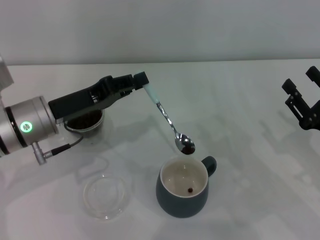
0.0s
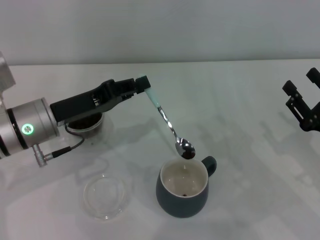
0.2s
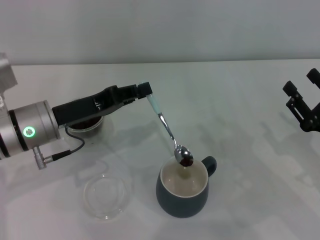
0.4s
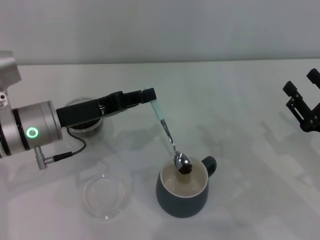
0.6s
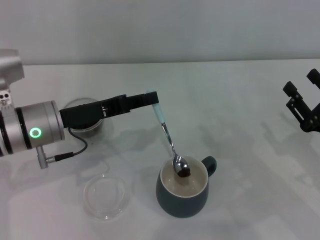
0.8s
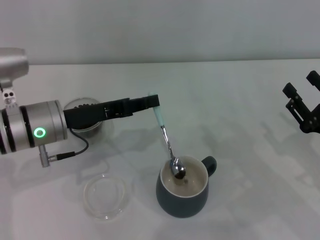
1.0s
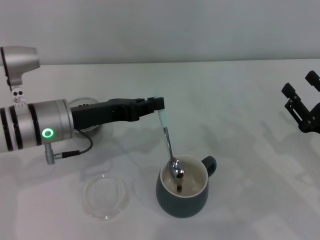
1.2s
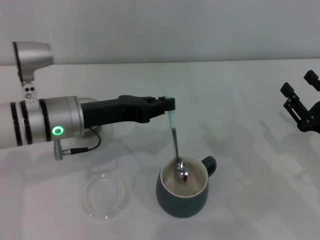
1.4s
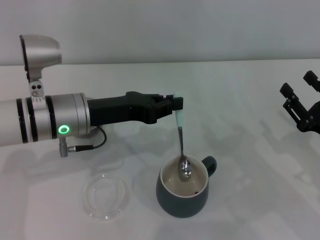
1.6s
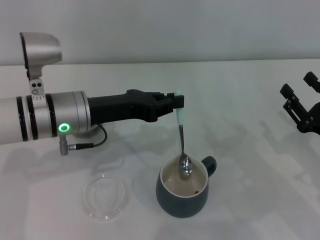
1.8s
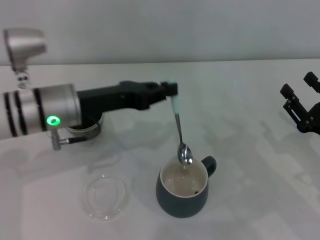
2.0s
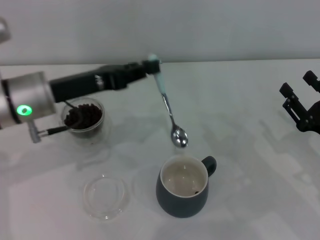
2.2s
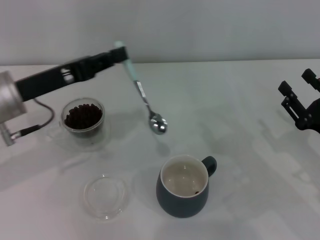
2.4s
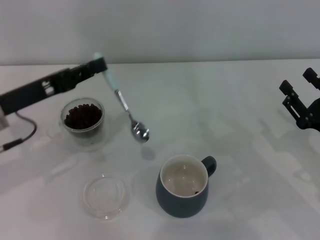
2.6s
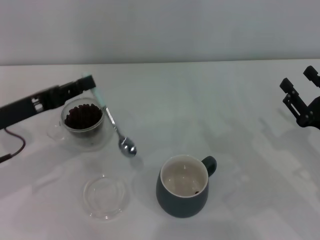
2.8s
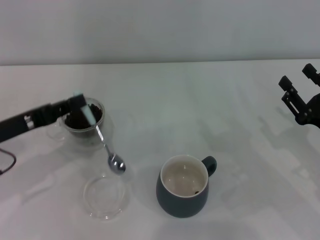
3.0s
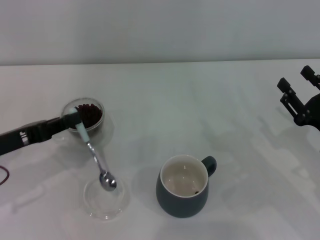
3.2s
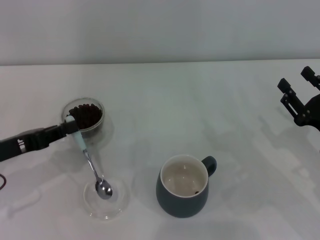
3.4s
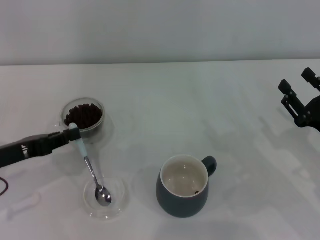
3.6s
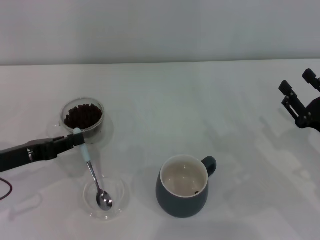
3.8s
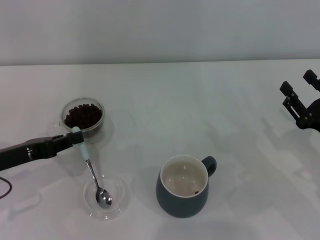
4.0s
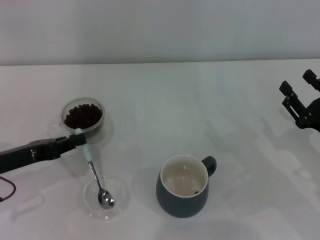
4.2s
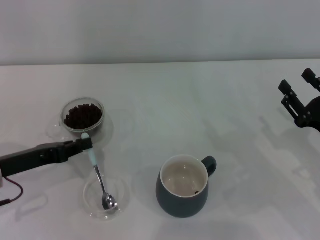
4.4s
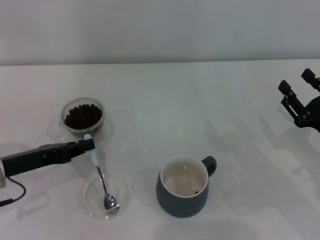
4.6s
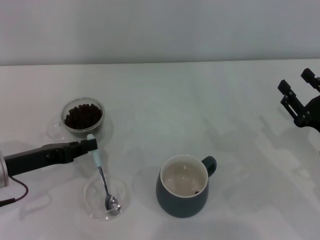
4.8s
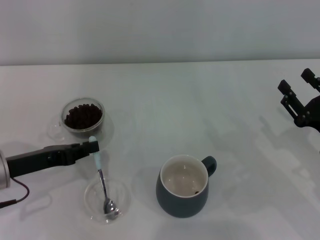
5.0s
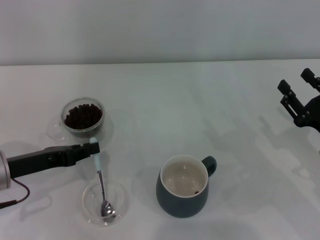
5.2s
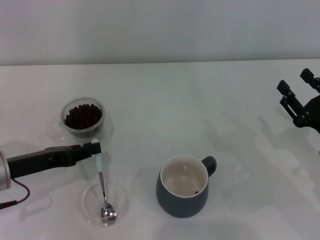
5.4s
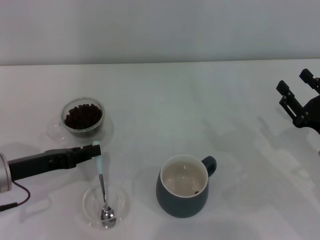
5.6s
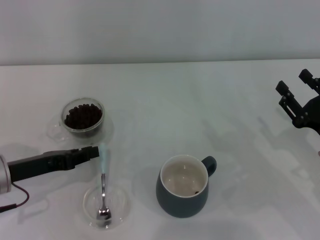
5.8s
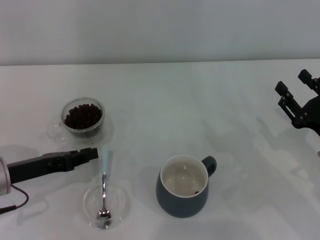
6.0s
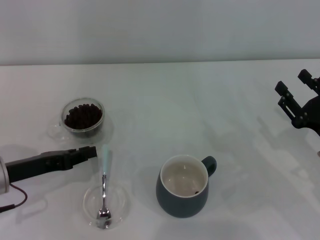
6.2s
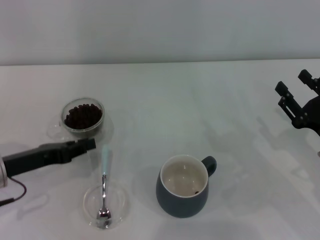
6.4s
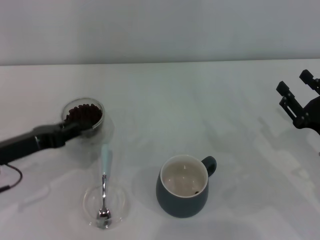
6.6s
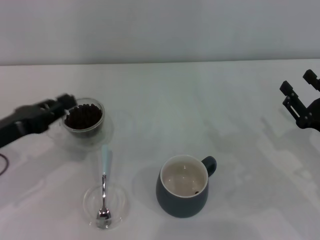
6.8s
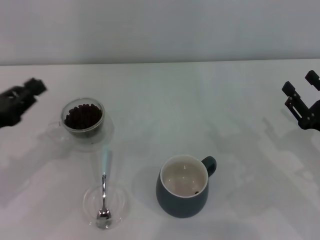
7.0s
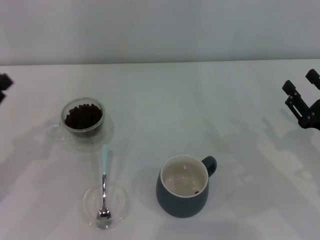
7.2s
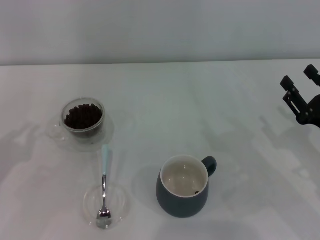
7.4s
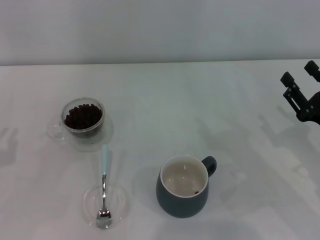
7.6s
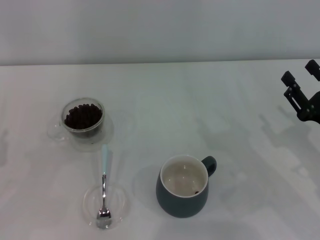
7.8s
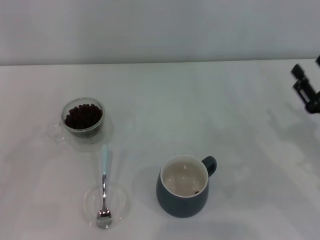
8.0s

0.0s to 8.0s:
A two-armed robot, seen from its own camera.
Task of the whole recording: Use a blue spoon to take out the coffee beans from the glass and pour them into the gray cup.
1.6s to 3.2s: The left gripper heads to the left, covering approximately 15 cm.
3.2s to 4.8s: The grippers make only small movements.
4.8s to 6.4s: Neither gripper changes place.
6.4s to 8.0s: The left gripper moves to the left and backward, some 10 cm.
